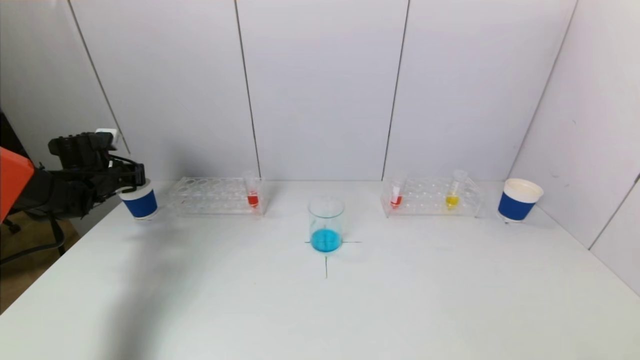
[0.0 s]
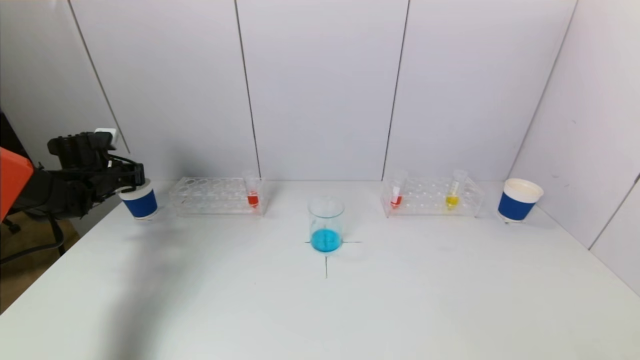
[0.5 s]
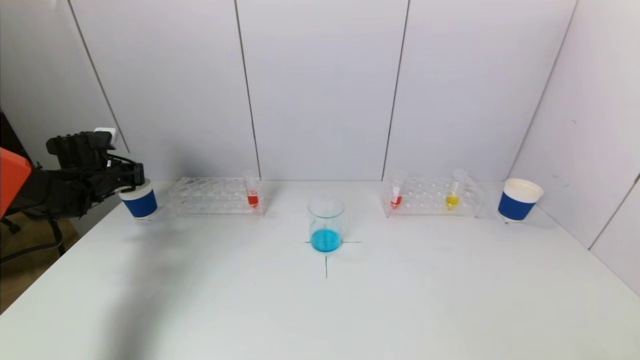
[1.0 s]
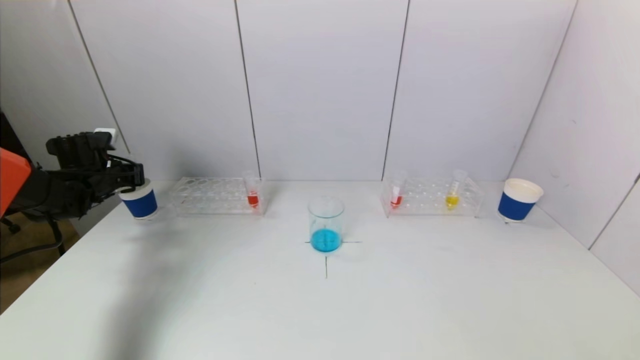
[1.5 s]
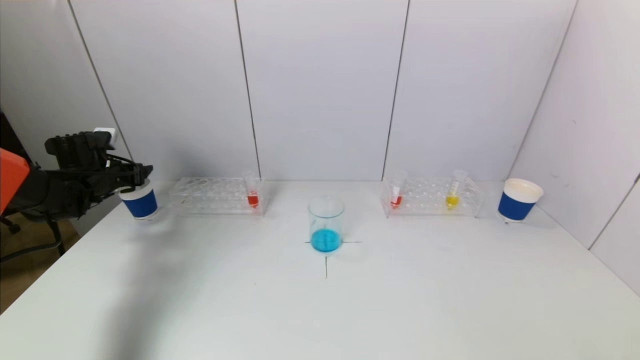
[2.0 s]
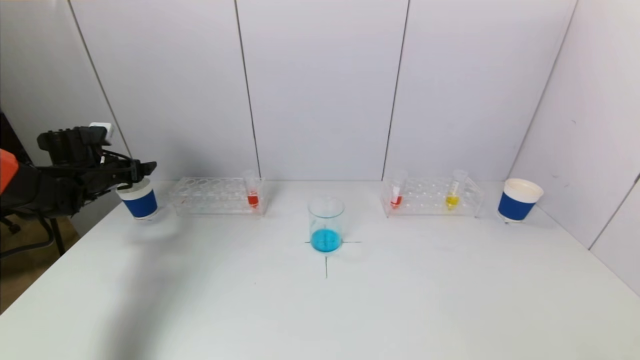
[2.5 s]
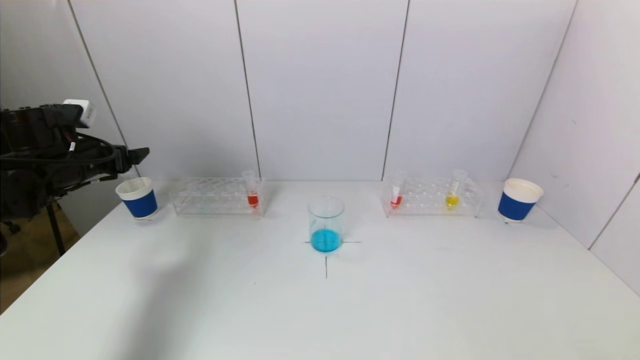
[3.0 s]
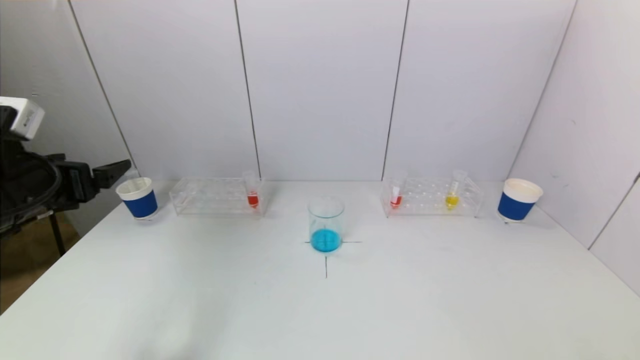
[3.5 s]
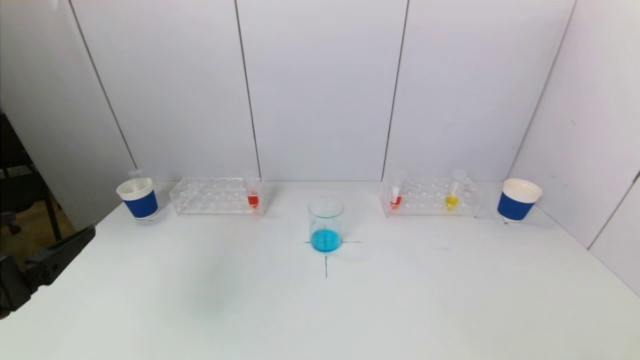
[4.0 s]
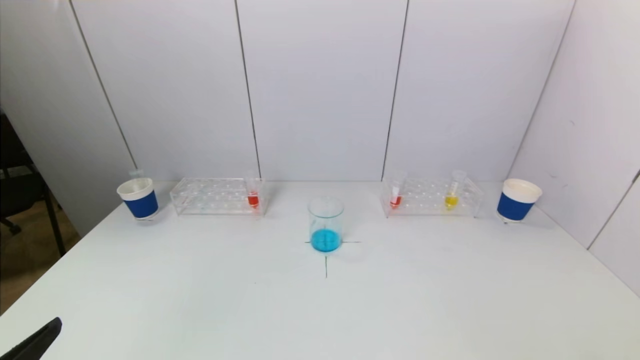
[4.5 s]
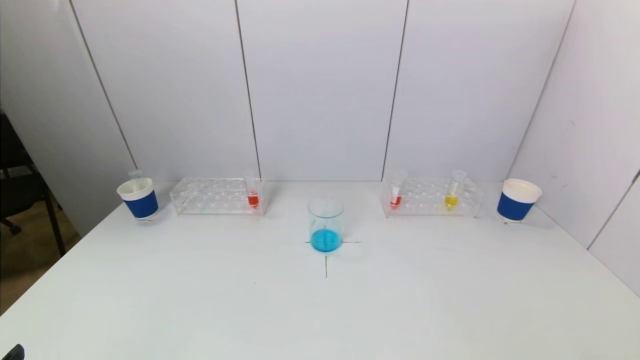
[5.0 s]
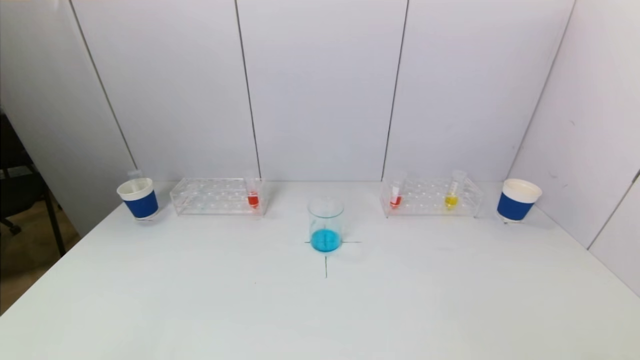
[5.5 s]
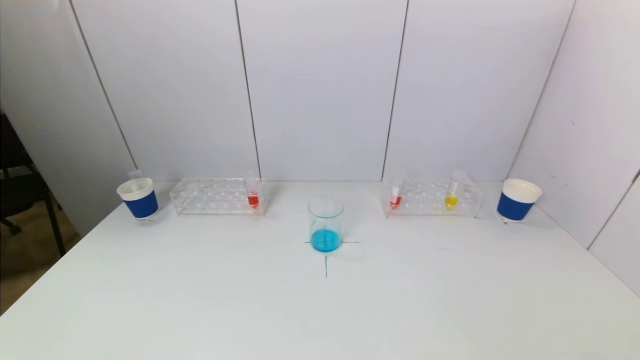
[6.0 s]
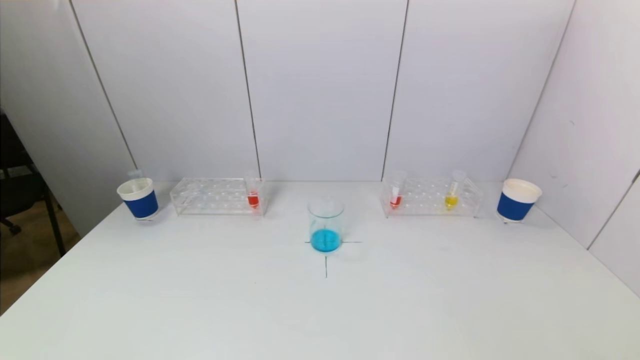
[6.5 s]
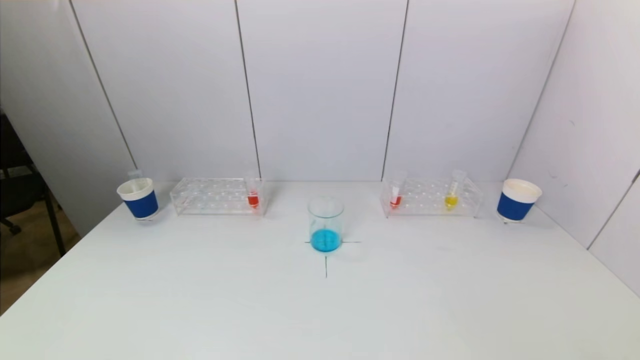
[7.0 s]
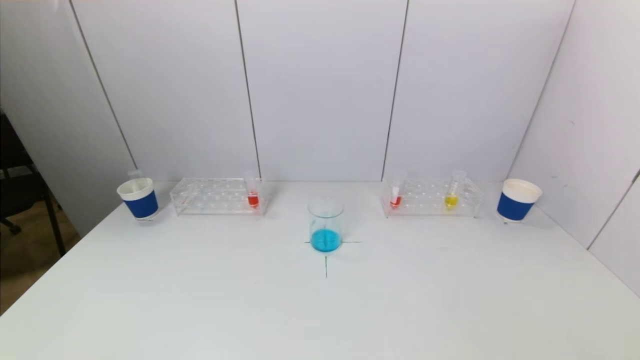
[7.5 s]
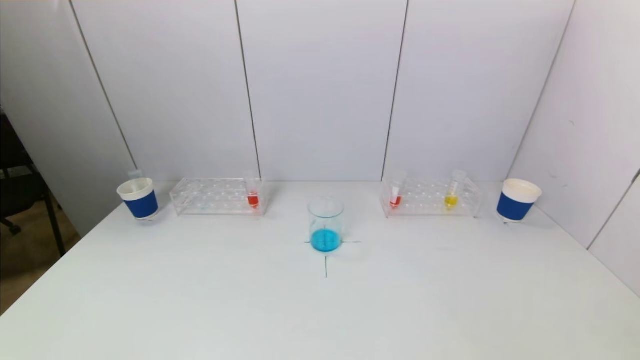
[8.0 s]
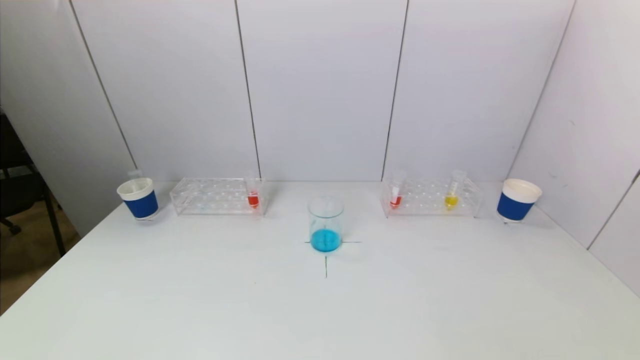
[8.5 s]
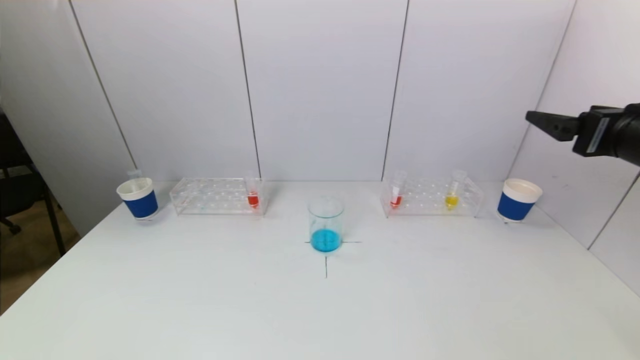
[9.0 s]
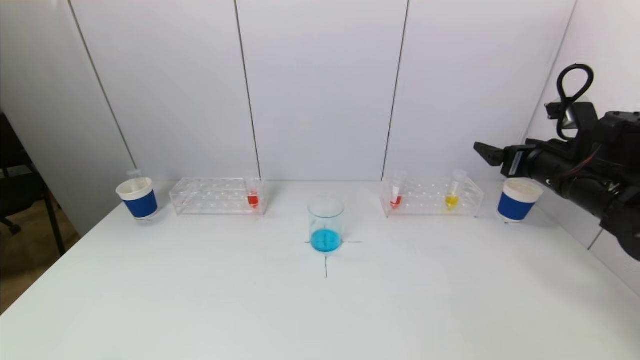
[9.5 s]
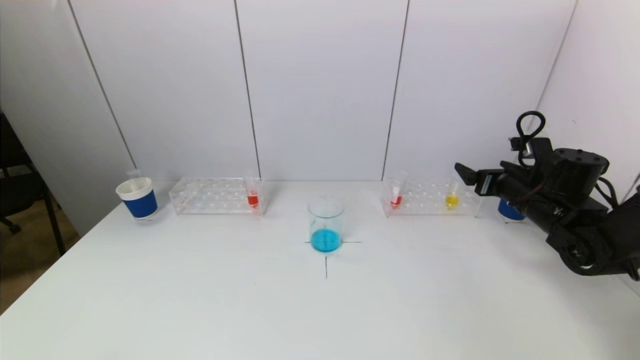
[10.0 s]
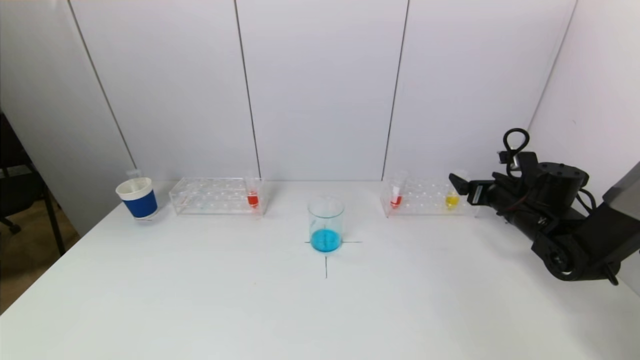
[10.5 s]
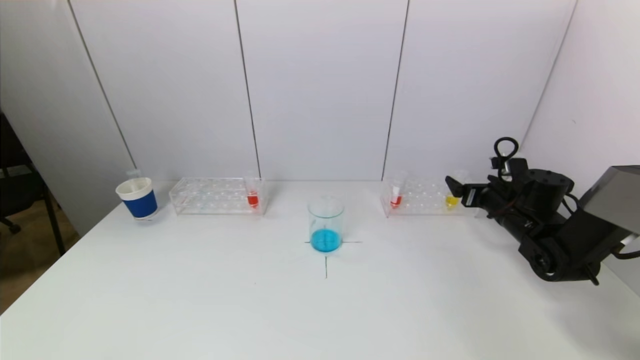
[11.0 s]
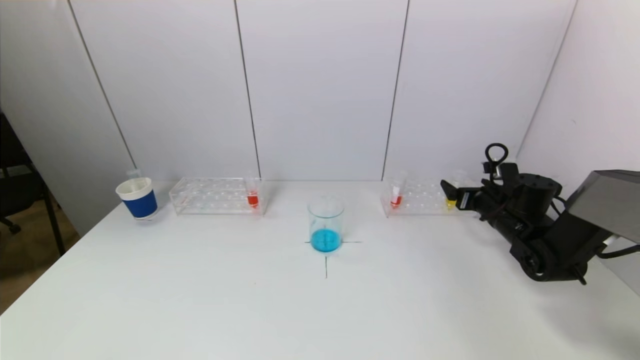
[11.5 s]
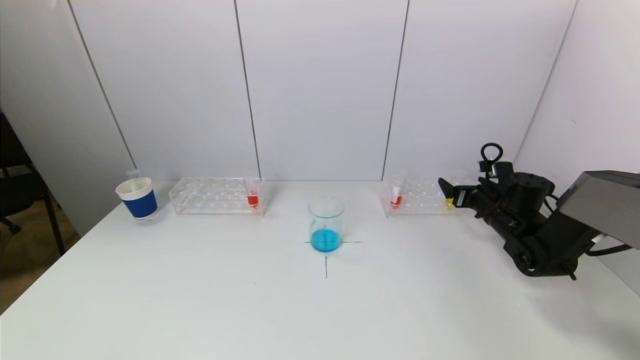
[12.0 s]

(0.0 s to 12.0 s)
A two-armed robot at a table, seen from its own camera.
Task of the whole recording: pick up a test tube with pigment on left test tube rack and a test tube with pigment on right test tube rack by grippers and pour them into the beaker.
2.0 s - 4.0 s: The left gripper travels backward by approximately 35 cm.
4.0 s - 6.0 s: The left gripper goes some 20 cm downward and backward.
8.0 s - 10.0 s: The right gripper heads forward, covering some 40 cm.
10.0 s - 12.0 s: The right gripper heads downward and forward, covering some 10 cm.

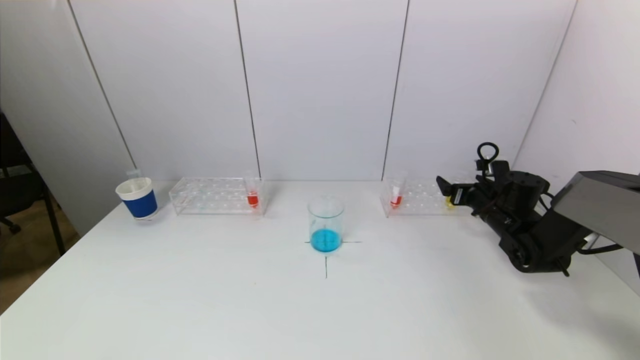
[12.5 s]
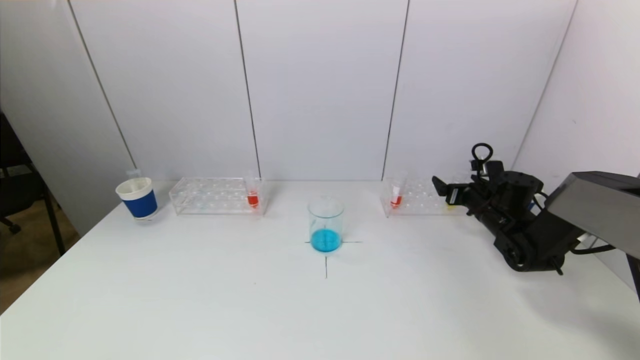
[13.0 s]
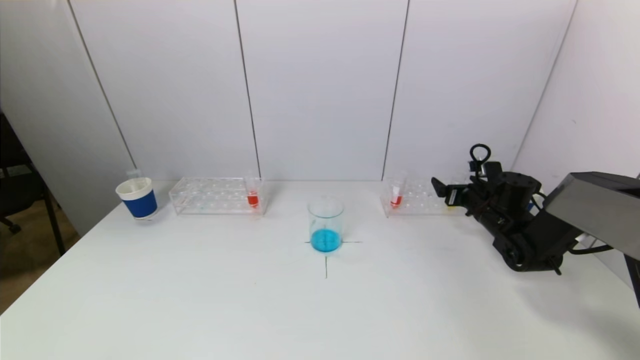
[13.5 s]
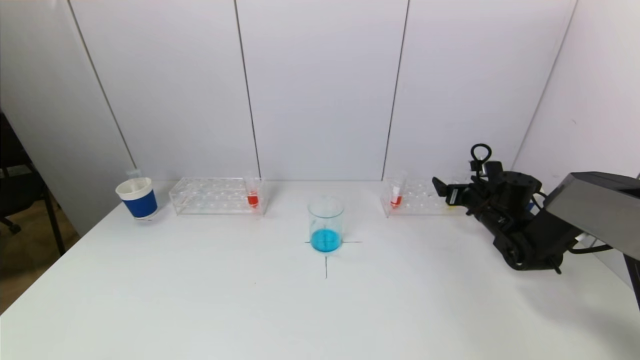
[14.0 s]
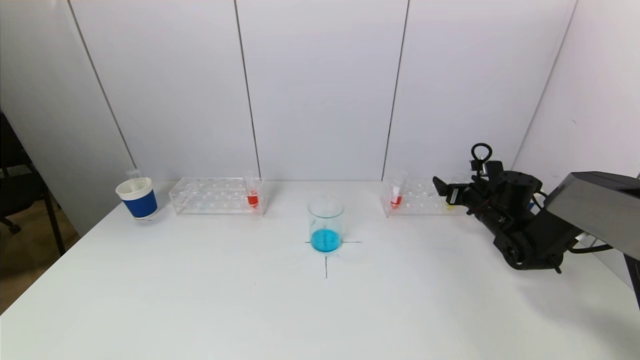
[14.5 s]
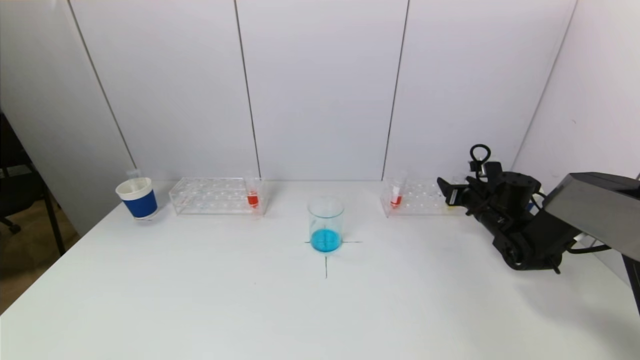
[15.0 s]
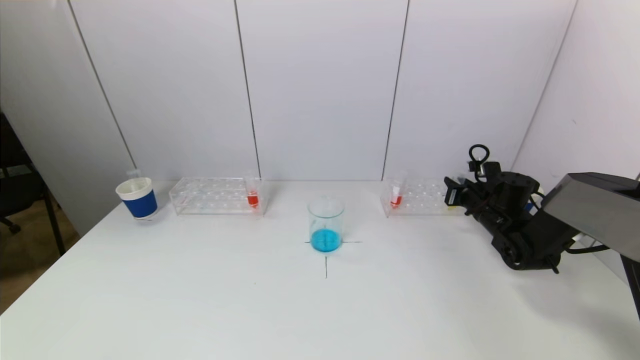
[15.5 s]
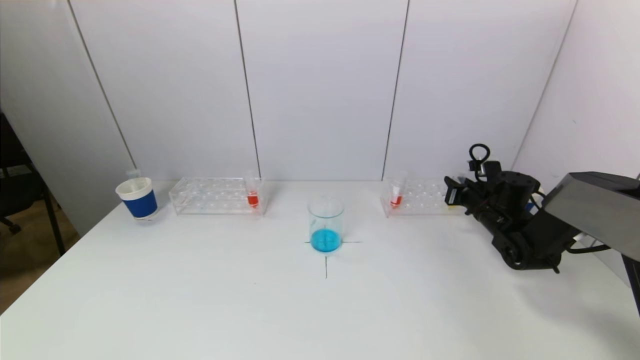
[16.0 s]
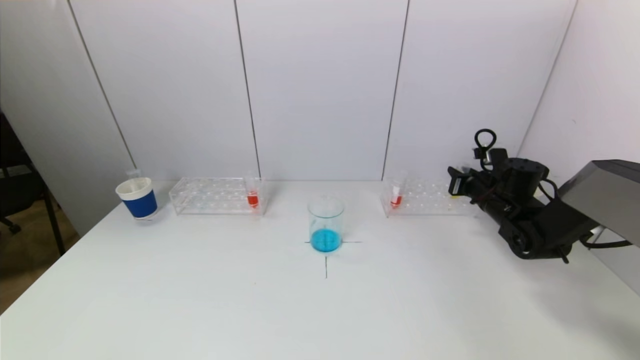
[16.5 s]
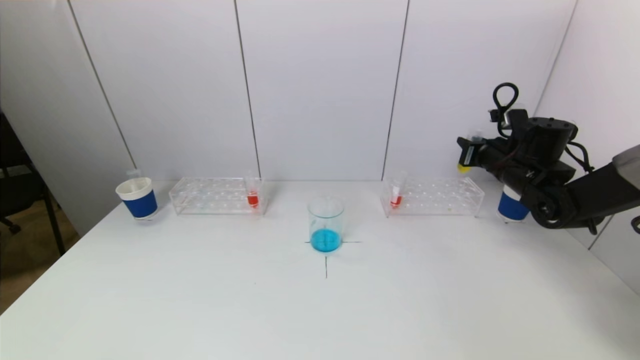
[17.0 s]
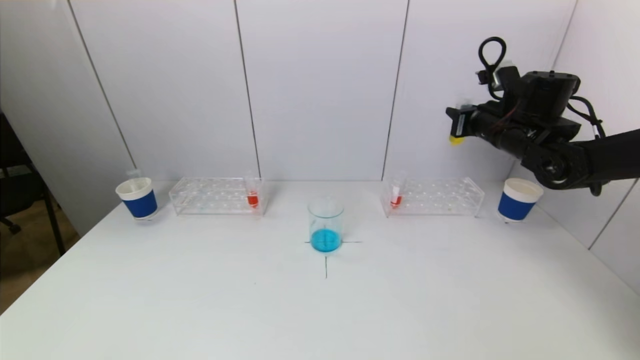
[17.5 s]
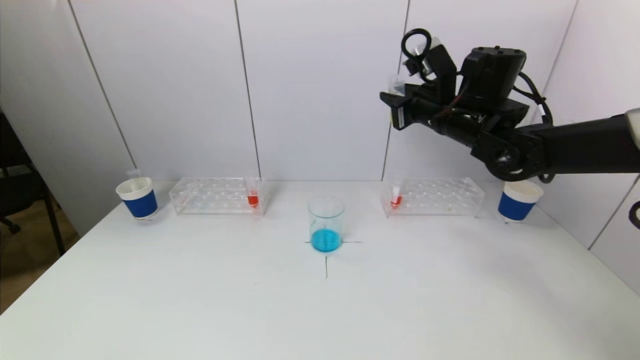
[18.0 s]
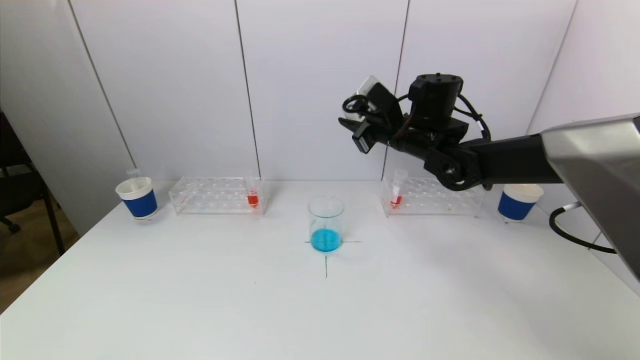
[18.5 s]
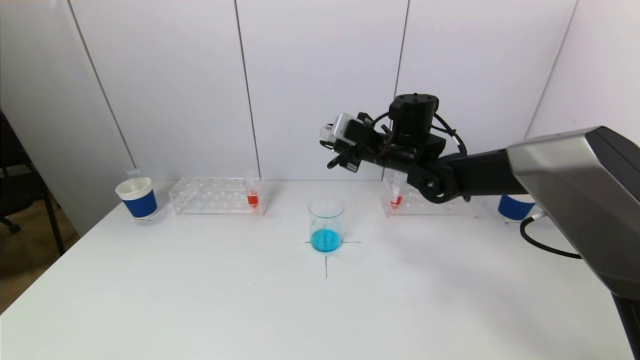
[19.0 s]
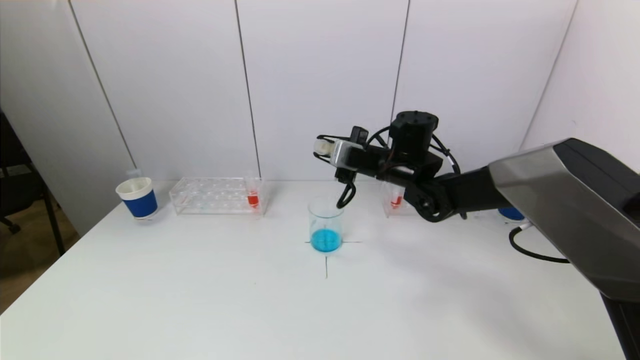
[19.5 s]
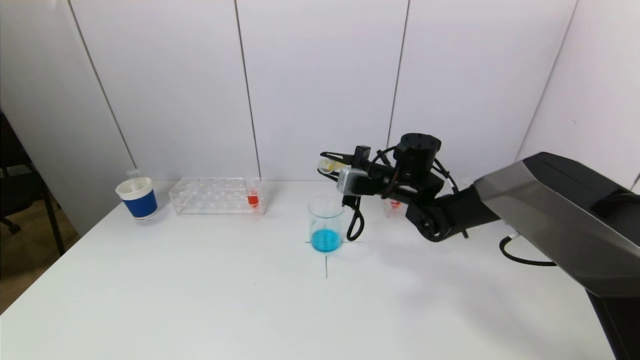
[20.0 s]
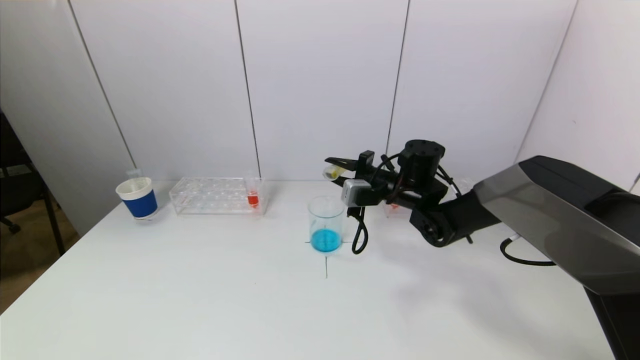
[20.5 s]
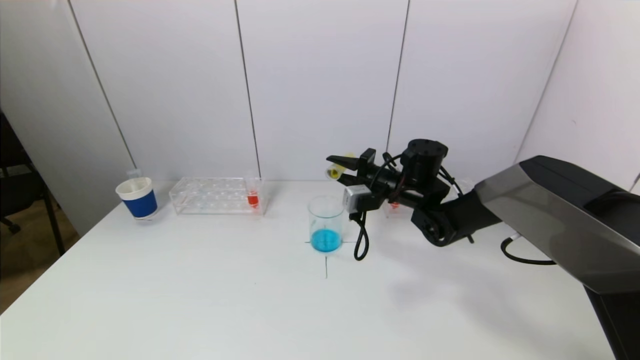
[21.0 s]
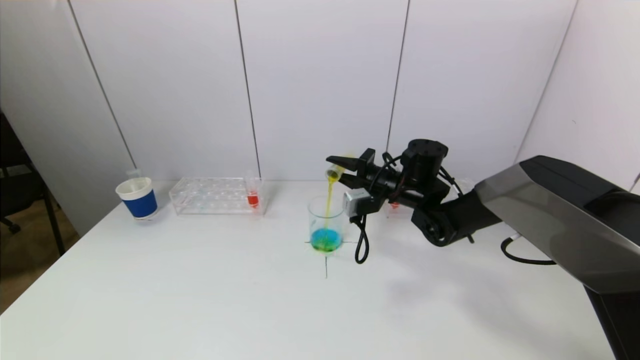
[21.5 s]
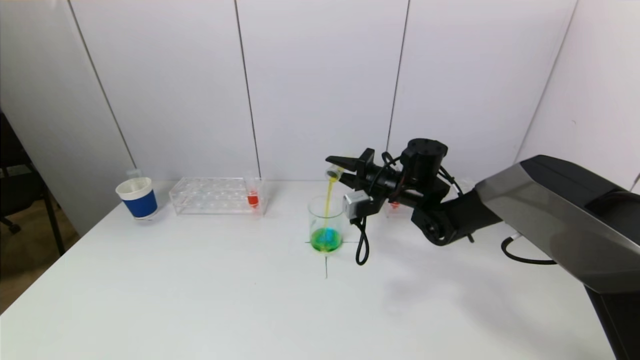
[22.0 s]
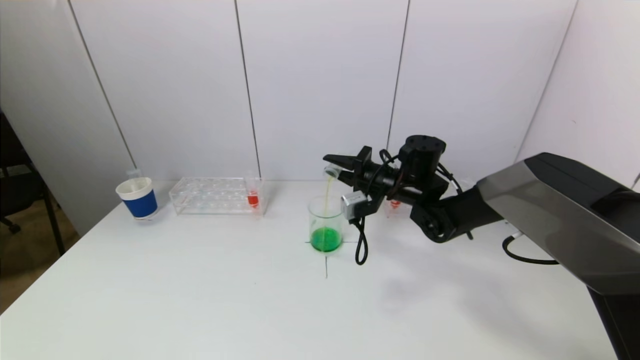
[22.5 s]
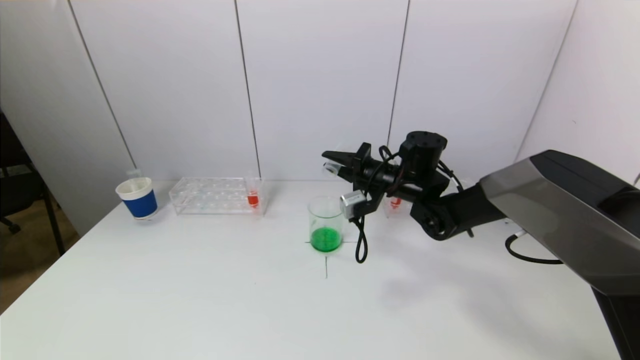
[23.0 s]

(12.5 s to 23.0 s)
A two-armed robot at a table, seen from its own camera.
Task of the whole recording: pick up a test tube with pigment on left test tube rack and a test tube with pigment on right test tube rack by grippers and pour them into the beaker.
Step, 12.5 s - 15.5 s: Grasp the yellow reagent with the right gripper.
Step, 16.0 s - 23.0 s: Pour the yellow reagent into the graduated cylinder with the right gripper.
12.5 s - 14.5 s: The two grippers keep their place.
14.5 s - 16.5 s: The right gripper closes.
16.5 s - 19.0 s: The right gripper goes roughly 25 cm to the left and upward.
19.0 s - 21.0 s: The right gripper heads downward, covering some 10 cm.
21.0 s - 23.0 s: There are only small adjustments of the grippers.
